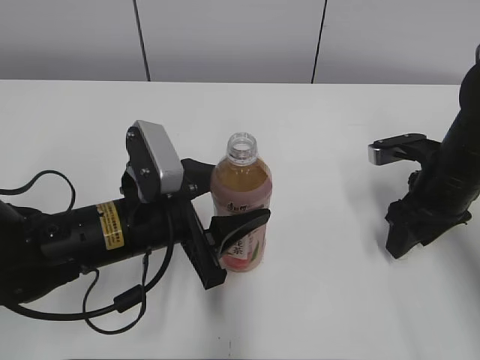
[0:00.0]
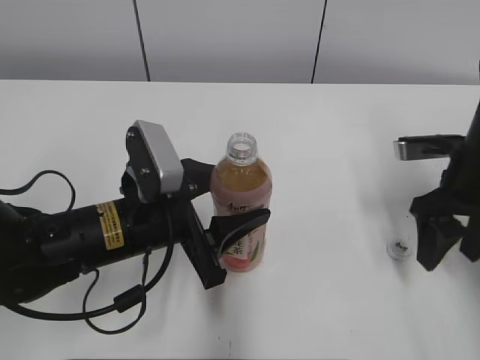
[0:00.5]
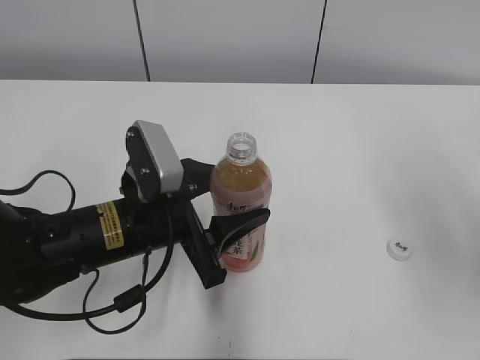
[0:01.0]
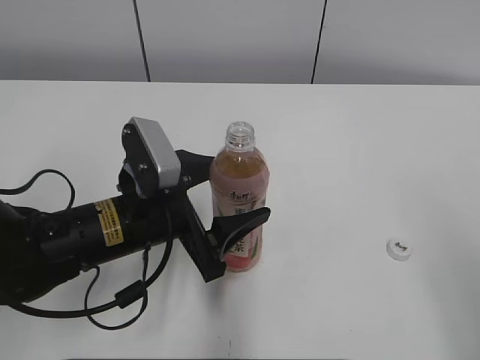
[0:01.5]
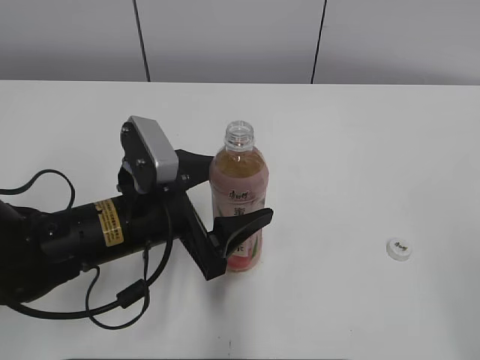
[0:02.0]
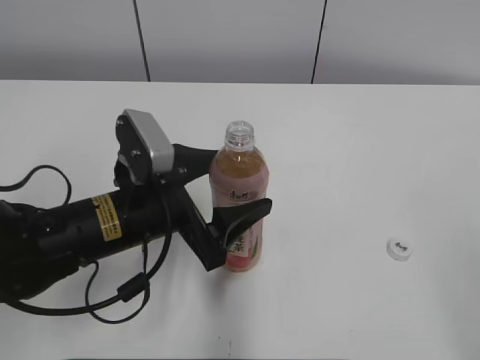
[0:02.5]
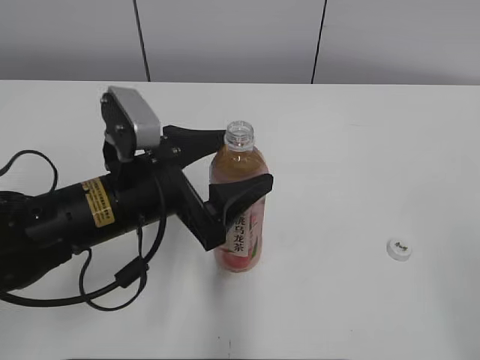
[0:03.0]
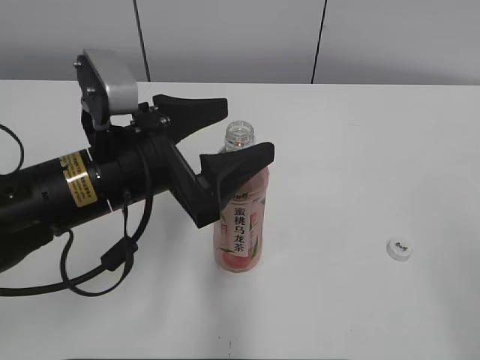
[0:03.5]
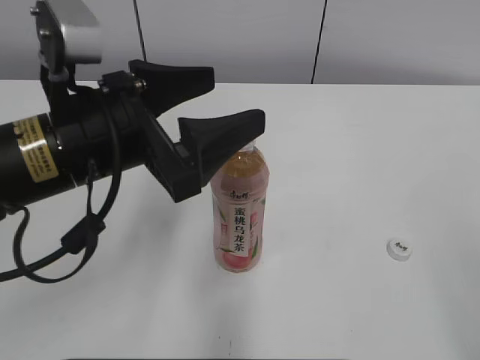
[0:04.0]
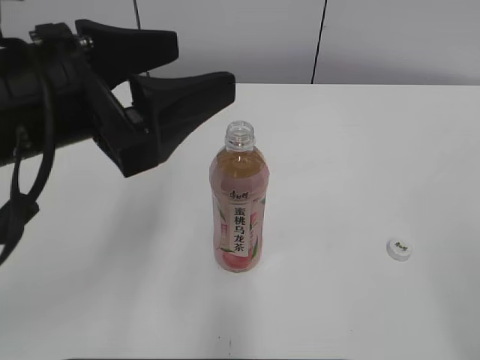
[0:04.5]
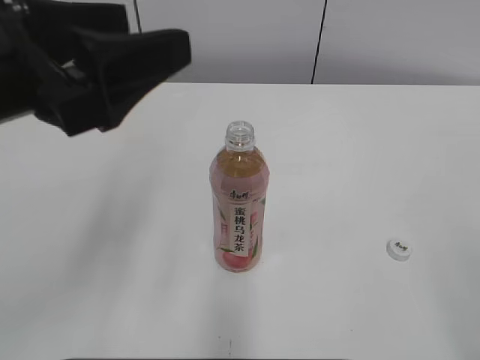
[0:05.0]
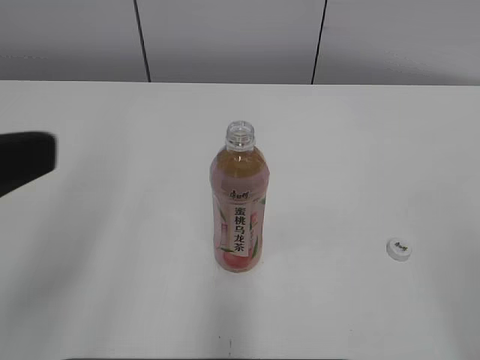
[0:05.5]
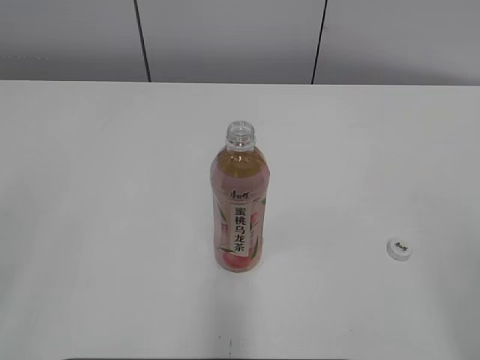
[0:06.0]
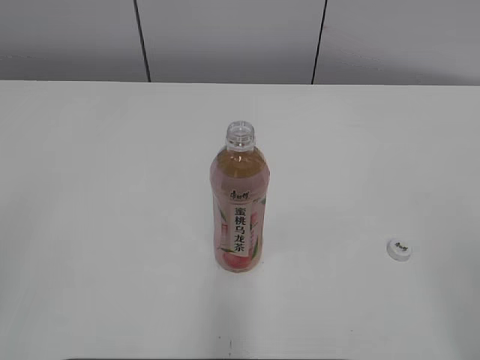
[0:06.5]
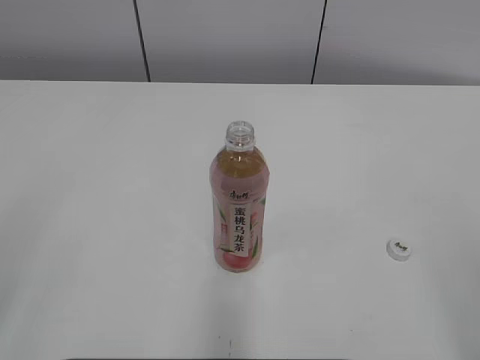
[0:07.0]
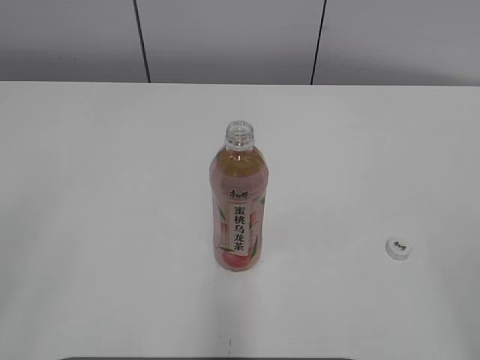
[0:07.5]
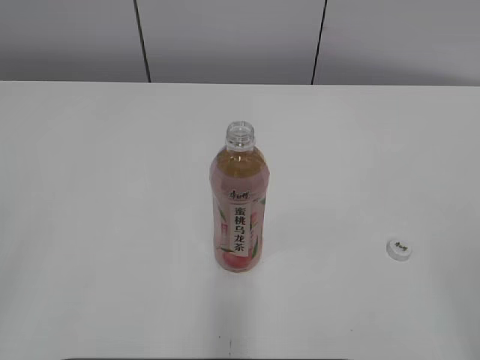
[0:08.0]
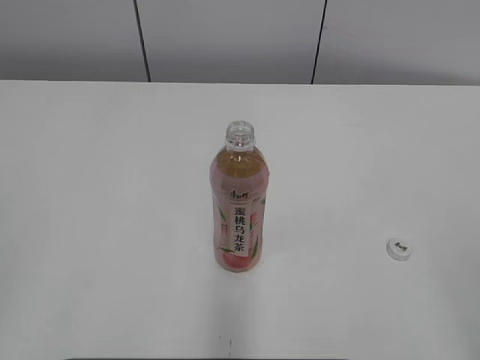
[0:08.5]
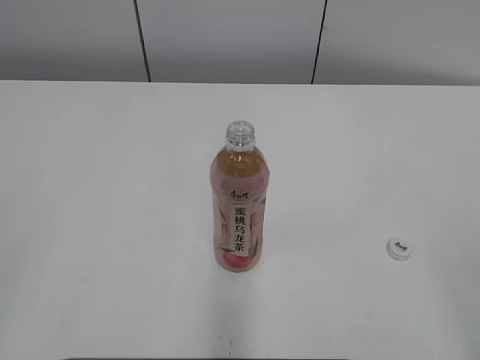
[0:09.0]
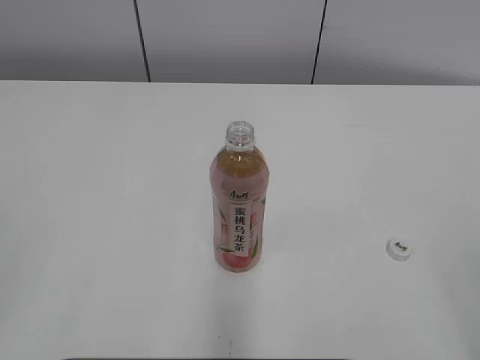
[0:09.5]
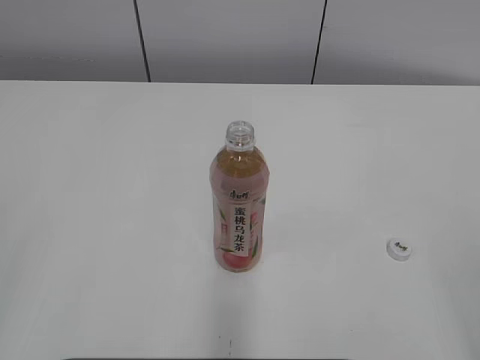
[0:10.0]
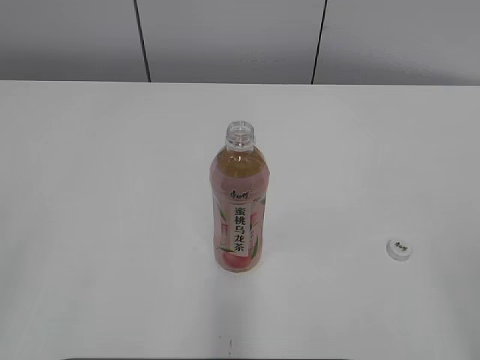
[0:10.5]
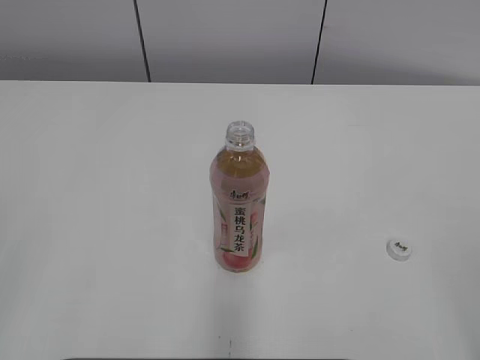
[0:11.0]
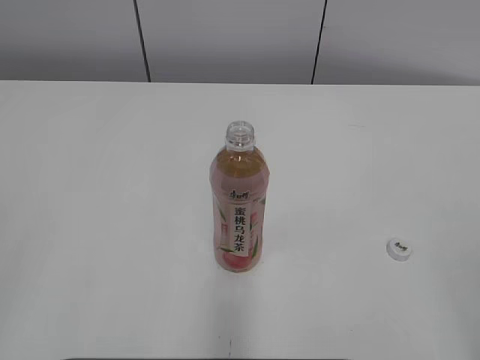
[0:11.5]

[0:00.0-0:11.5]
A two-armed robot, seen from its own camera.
0:00.0 to 0:02.0: The left gripper opens up, while the right gripper shifts some 35 cm backward and upward, and opens up.
0:02.0 to 0:04.0: The left gripper moves upward, about 10 cm.
0:04.0 to 0:06.0: The left gripper shifts approximately 30 cm backward, to the left and upward.
0:09.5 to 0:11.5: Both grippers stay about where they are.
